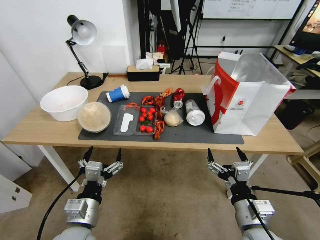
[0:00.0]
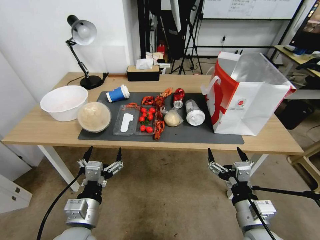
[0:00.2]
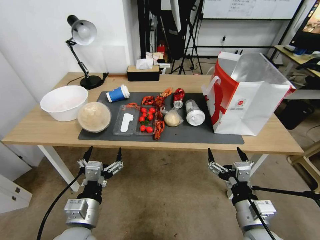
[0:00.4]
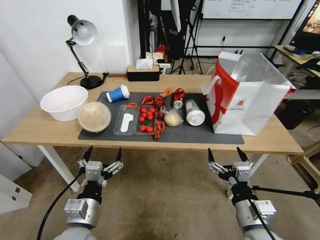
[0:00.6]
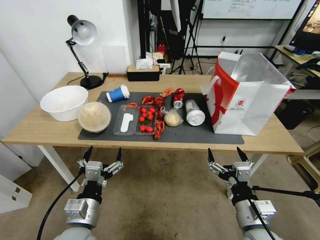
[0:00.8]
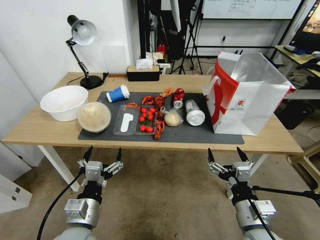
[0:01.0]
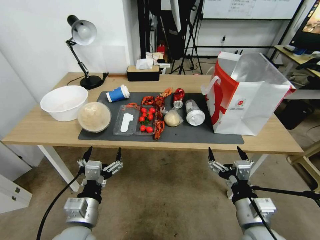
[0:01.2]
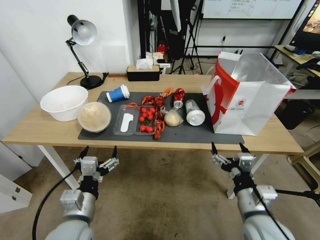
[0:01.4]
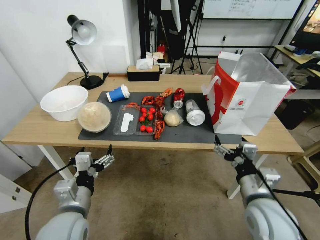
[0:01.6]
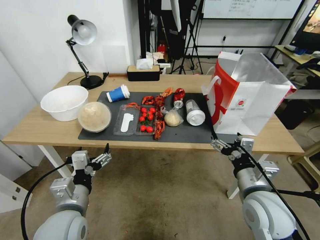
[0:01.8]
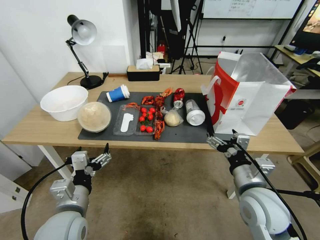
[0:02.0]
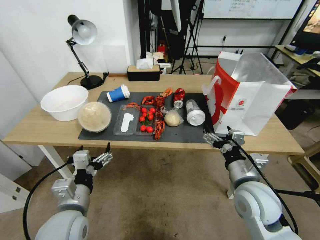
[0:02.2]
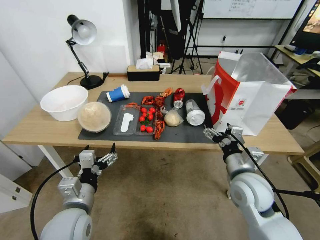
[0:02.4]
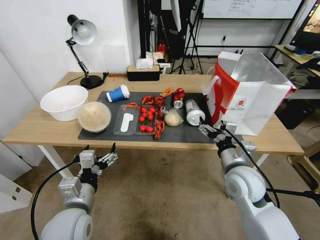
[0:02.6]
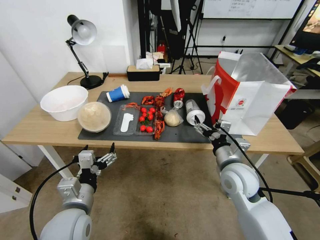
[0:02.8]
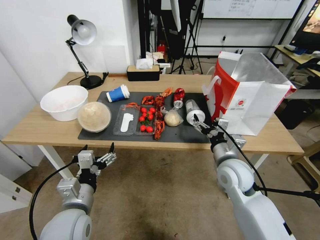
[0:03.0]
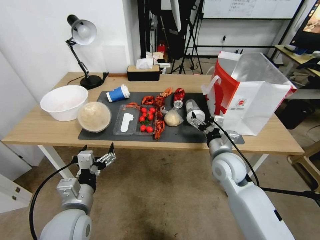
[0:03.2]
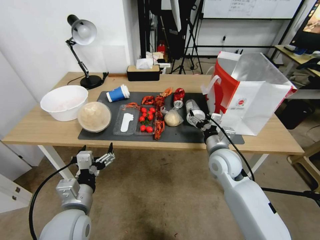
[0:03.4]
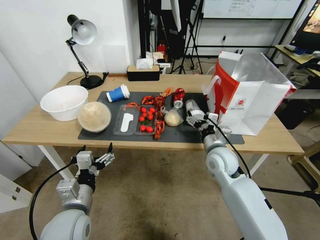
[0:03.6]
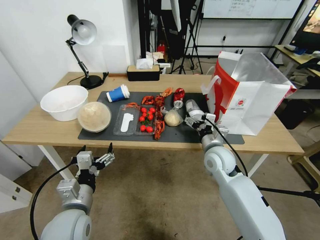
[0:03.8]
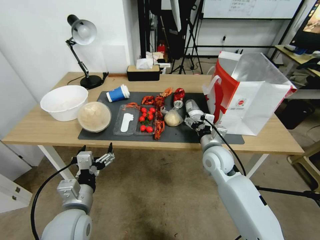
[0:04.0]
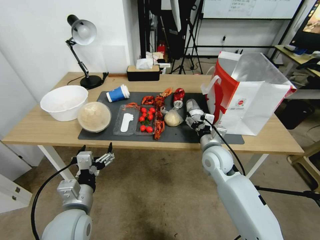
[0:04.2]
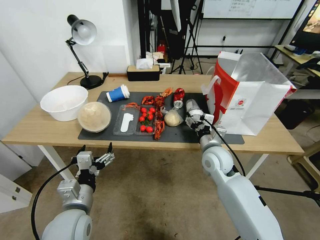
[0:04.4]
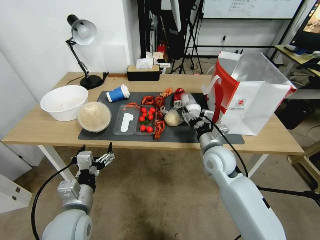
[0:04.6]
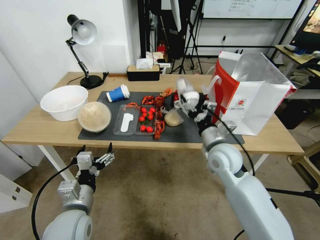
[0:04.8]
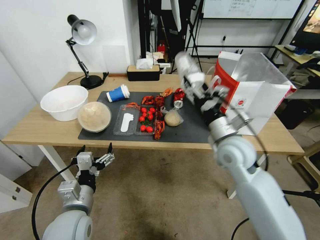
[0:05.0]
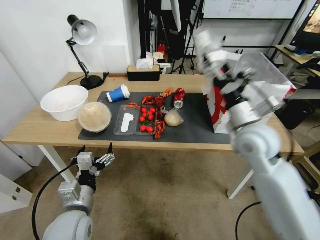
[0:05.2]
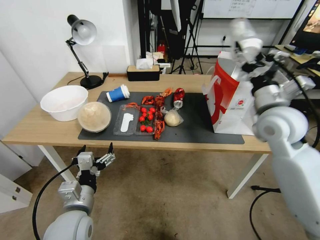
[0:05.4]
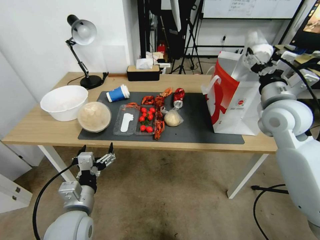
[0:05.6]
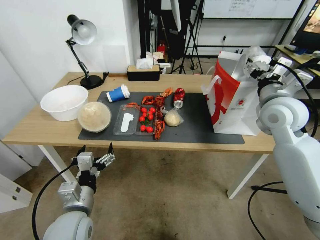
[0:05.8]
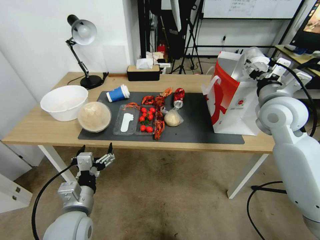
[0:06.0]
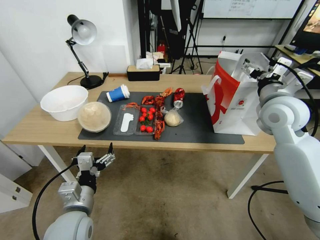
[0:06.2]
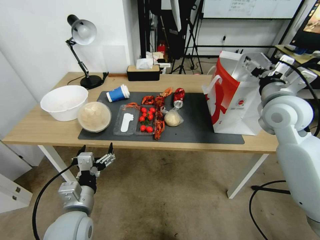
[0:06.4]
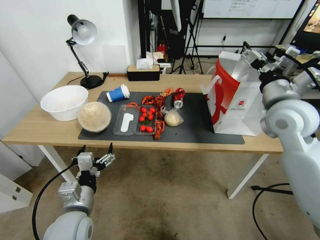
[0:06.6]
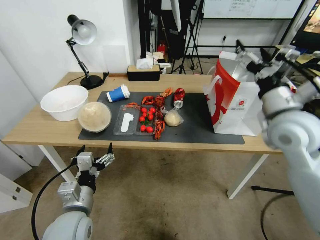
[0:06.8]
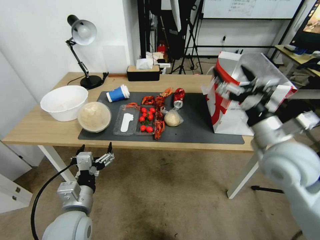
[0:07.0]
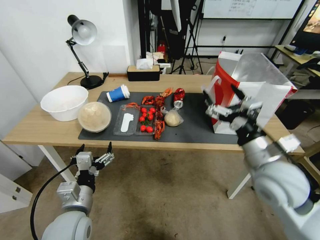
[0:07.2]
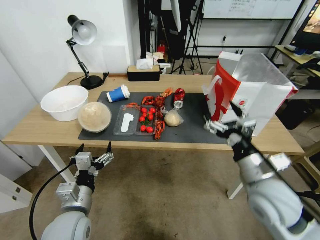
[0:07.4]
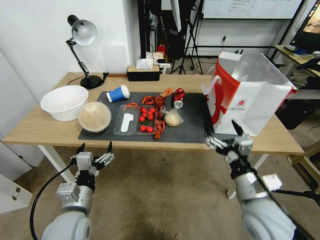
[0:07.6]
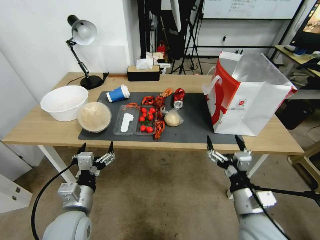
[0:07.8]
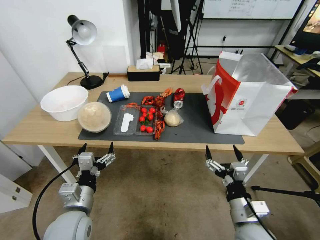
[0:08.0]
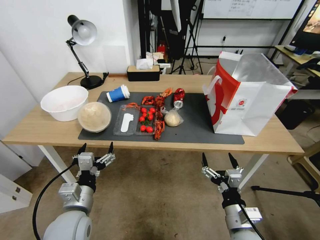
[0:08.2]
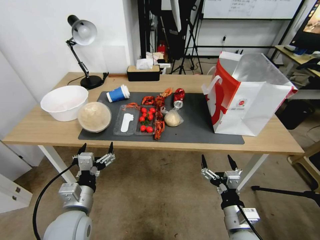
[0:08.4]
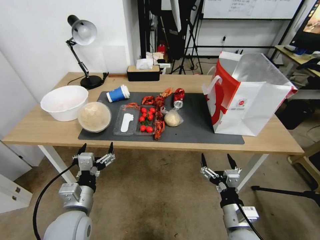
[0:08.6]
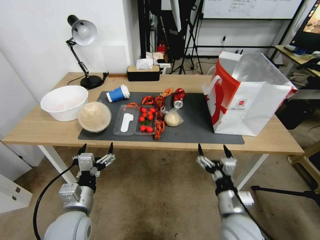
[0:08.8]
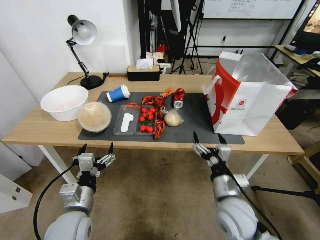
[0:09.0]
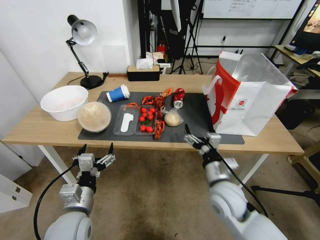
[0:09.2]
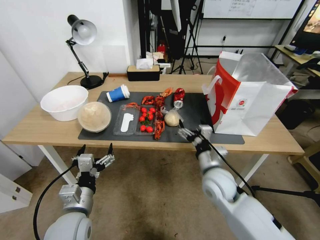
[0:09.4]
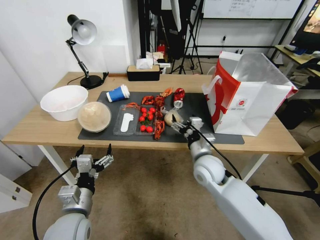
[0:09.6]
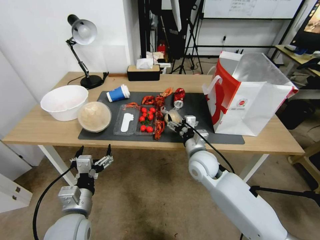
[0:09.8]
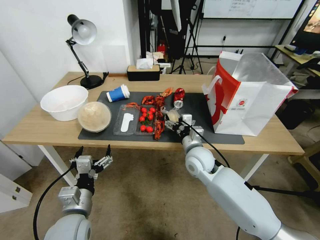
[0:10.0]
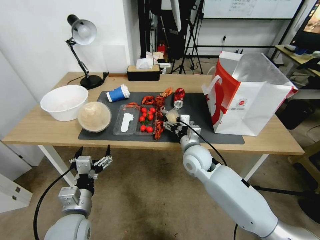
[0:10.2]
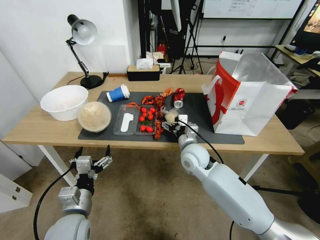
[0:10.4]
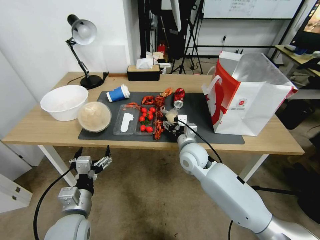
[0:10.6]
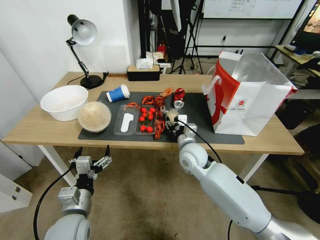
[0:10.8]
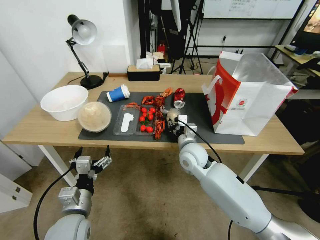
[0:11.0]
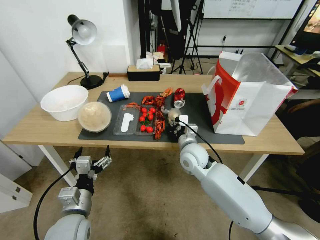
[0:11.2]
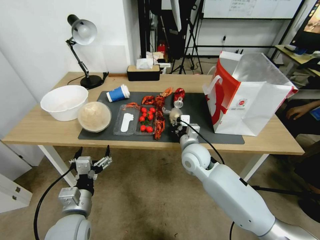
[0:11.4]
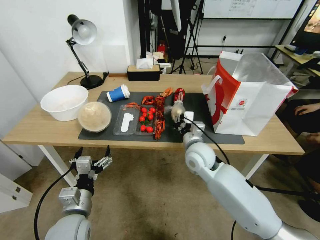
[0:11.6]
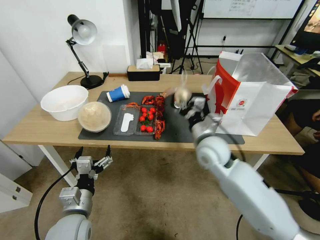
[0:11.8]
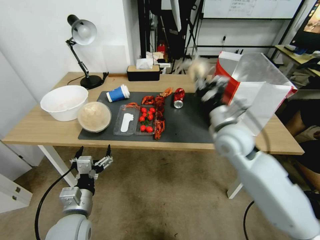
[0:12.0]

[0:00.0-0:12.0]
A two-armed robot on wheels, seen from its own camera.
0:01.6 to 0:03.0: The right gripper heads forward, covering some 10 cm.
0:03.0 to 0:04.4: The right gripper shifts approximately 5 cm forward.
0:04.4 to 0:06.0: The right gripper is displaced upward and to the right by roughly 25 cm.
0:06.0 to 0:07.6: The right gripper travels backward and downward by roughly 25 cm.
0:07.6 to 0:09.0: The right gripper shifts about 5 cm downward.
0:09.0 to 0:10.4: The right gripper is displaced forward and to the left by roughly 20 cm.
0:10.4 to 0:12.0: The right gripper moves upward and to the right, about 15 cm, and closes.

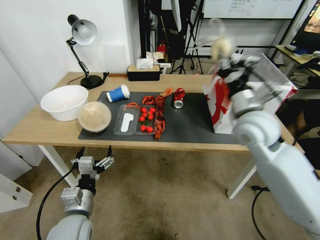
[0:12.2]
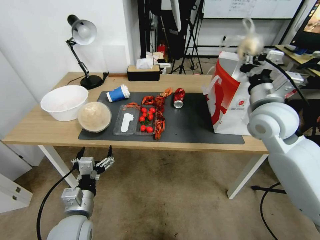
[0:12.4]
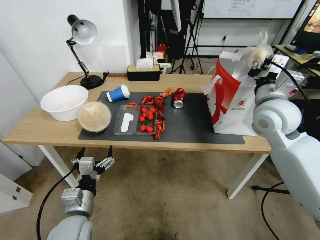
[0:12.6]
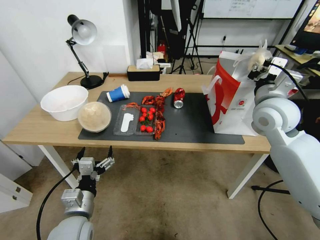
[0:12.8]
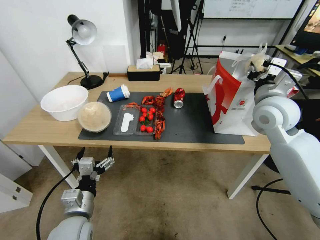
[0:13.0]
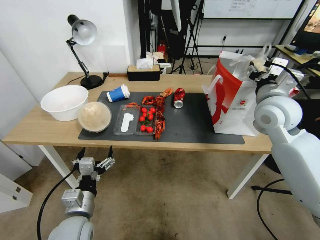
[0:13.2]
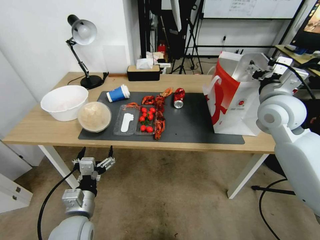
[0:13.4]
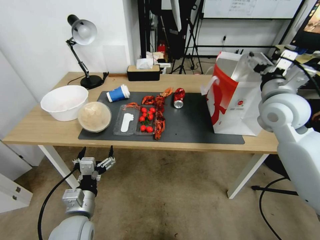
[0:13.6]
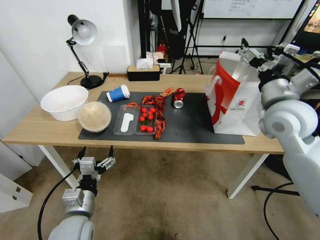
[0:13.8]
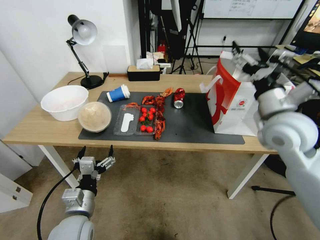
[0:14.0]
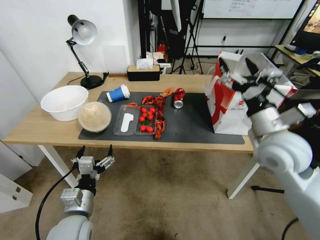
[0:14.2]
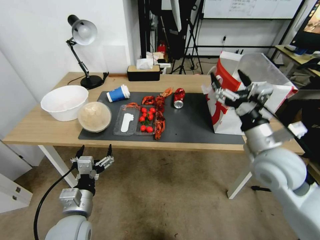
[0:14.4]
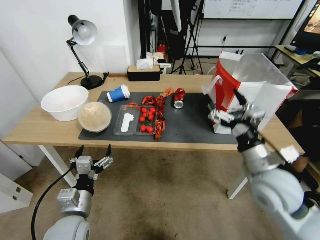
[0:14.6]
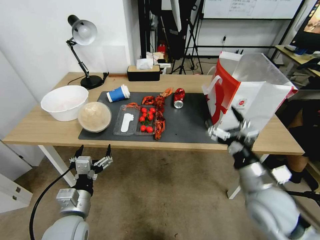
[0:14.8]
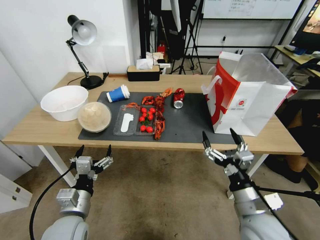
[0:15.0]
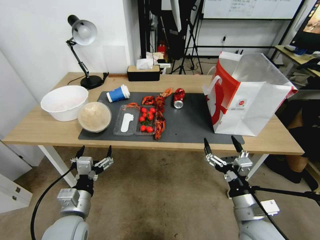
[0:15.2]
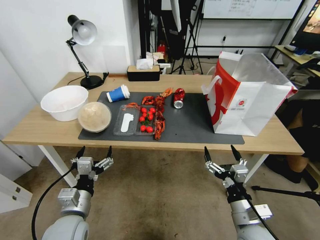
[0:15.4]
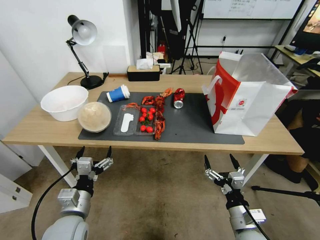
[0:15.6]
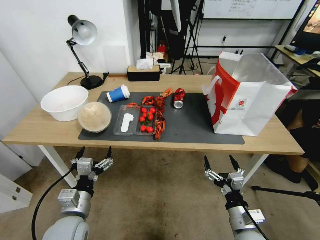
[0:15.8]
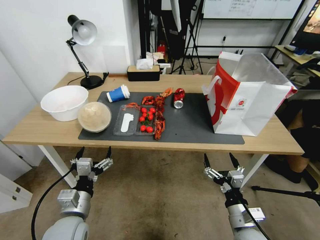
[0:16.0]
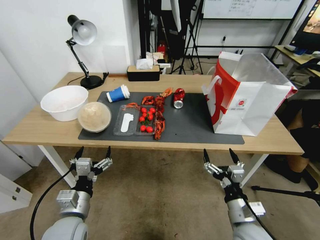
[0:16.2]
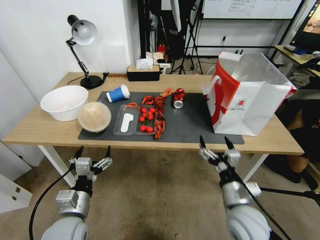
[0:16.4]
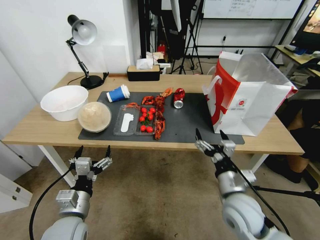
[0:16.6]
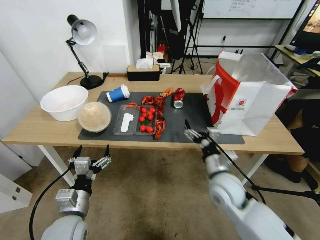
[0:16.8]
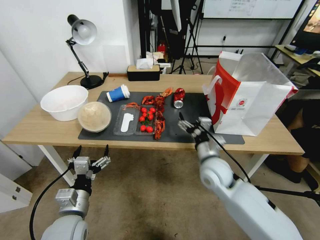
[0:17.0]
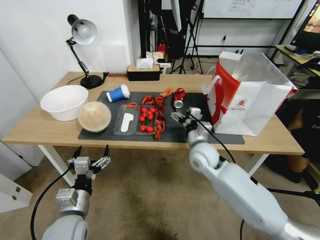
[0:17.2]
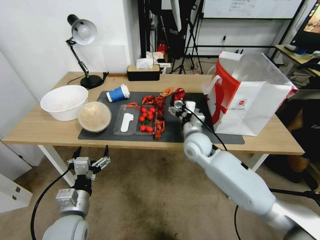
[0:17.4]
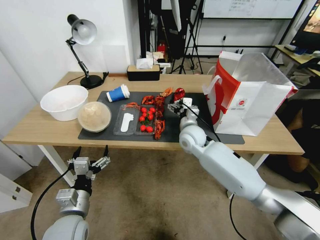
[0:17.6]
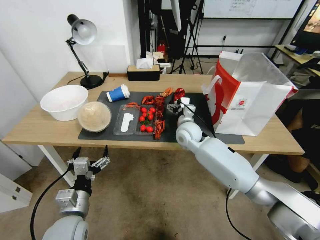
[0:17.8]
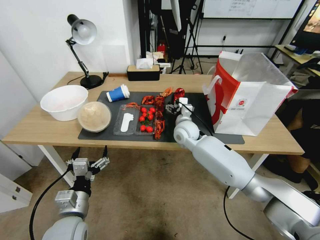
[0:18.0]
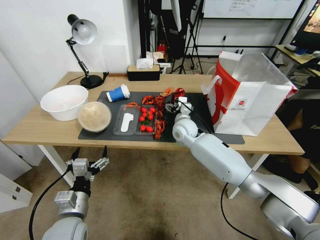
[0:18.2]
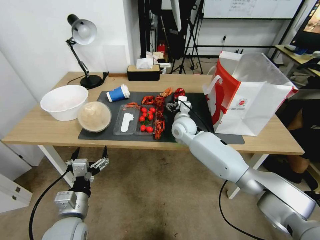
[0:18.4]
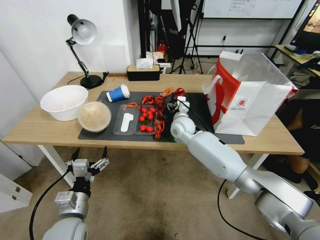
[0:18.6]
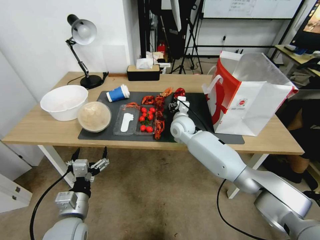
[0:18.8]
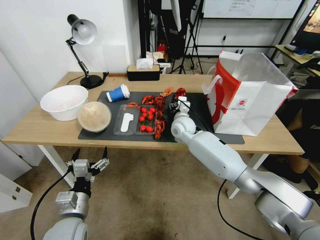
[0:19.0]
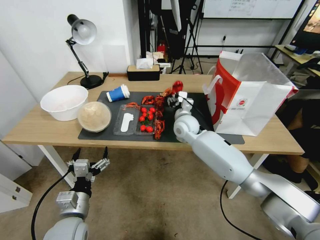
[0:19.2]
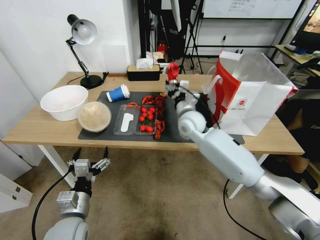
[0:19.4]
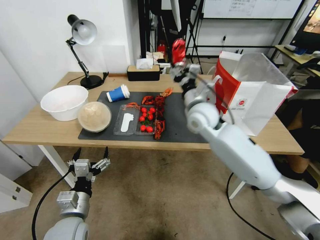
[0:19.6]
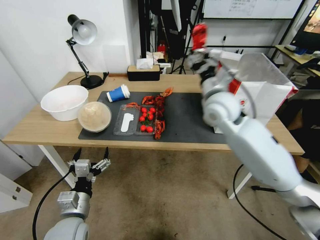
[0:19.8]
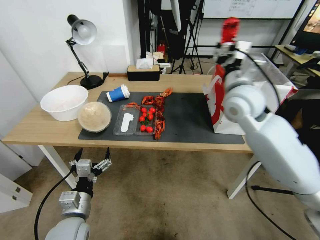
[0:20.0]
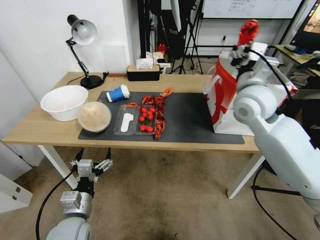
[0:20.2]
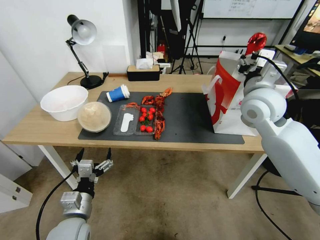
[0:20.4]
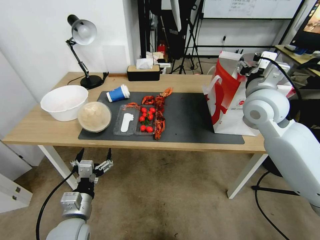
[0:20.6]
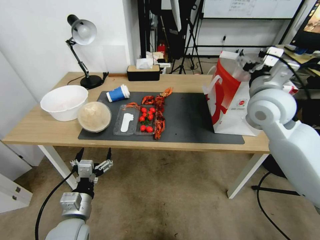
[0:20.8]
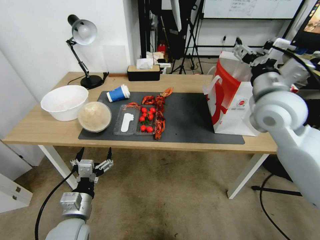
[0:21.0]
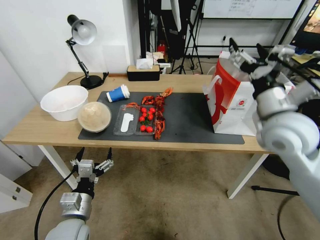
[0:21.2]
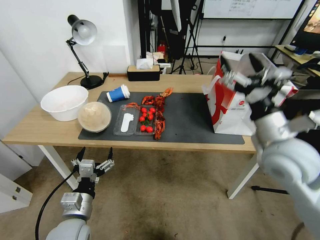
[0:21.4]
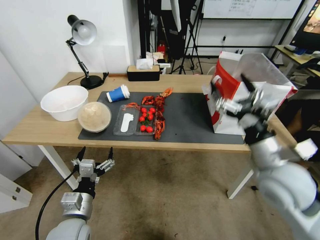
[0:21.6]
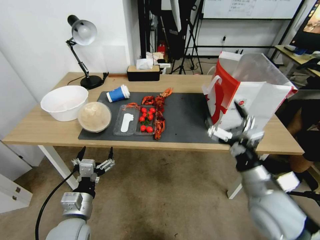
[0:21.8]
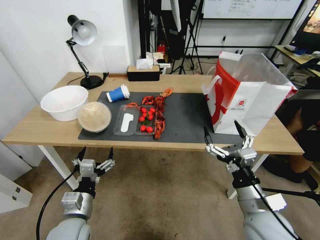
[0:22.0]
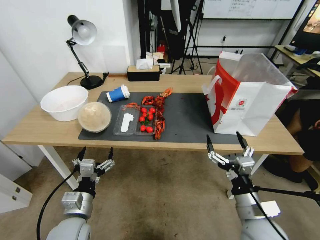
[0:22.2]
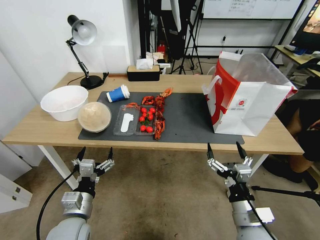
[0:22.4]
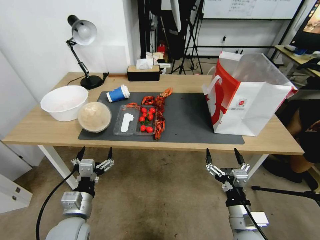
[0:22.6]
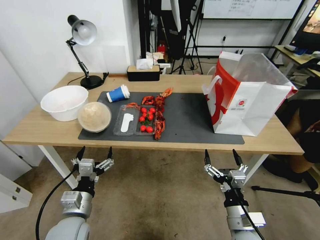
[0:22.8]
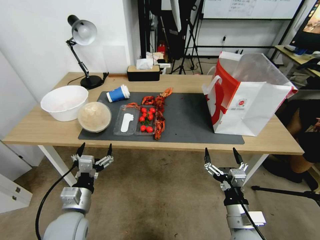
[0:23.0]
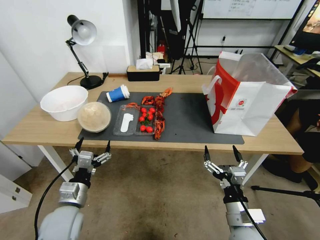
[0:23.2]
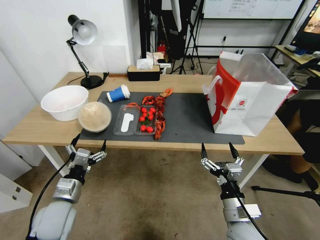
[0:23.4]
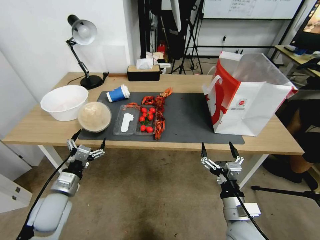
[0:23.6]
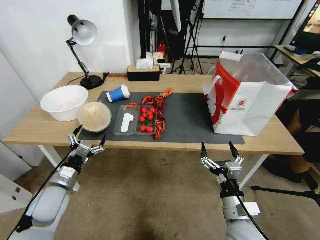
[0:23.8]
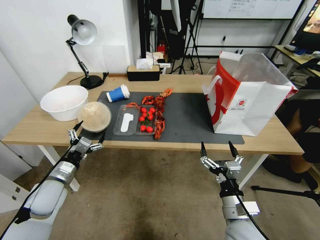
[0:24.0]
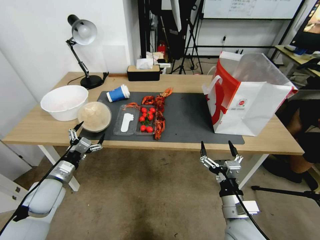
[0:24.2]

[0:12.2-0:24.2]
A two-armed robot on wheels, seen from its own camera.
0:12.2 to 0:13.8: The right gripper goes roughly 5 cm to the right, and opens.
0:13.8 to 0:15.2: The right gripper is displaced downward and backward by some 30 cm.
0:15.2 to 0:16.6: The right gripper travels forward by approximately 5 cm, and goes downward and returns, roughly 10 cm each way.
0:16.6 to 0:18.2: The right gripper moves forward and to the left, about 30 cm.
0:18.2 to 0:19.8: The right gripper shifts about 20 cm upward and to the right, and closes up.
0:19.8 to 0:21.2: The right gripper moves to the right and backward, about 10 cm, and opens up.
0:21.2 to 0:22.6: The right gripper moves downward and backward, about 35 cm.
0:22.6 to 0:24.2: The left gripper travels to the left and forward by some 15 cm.
